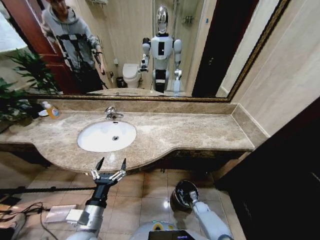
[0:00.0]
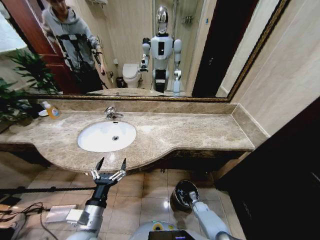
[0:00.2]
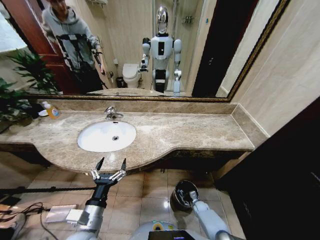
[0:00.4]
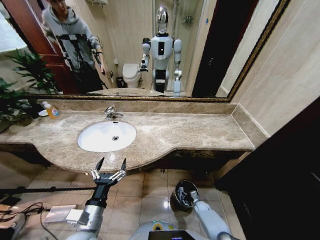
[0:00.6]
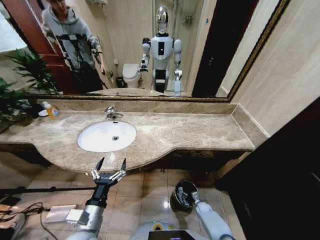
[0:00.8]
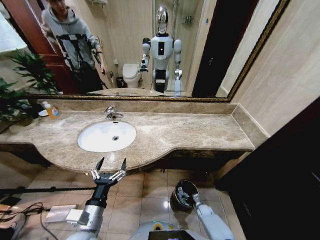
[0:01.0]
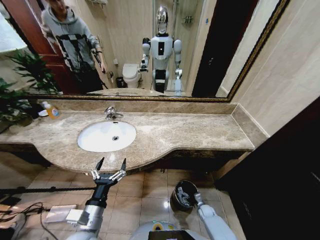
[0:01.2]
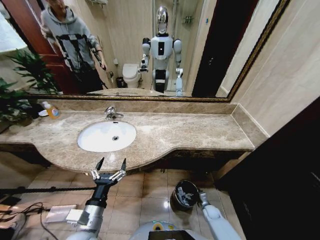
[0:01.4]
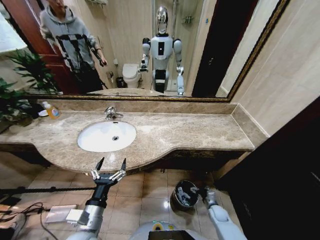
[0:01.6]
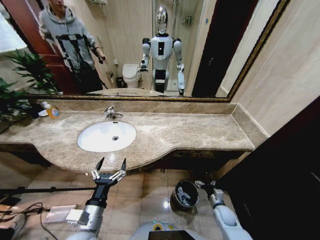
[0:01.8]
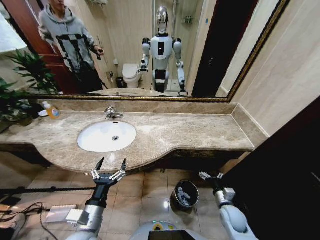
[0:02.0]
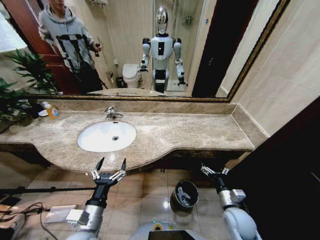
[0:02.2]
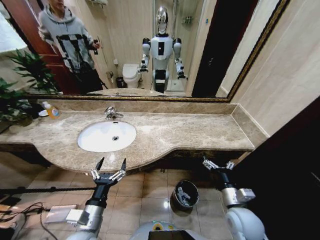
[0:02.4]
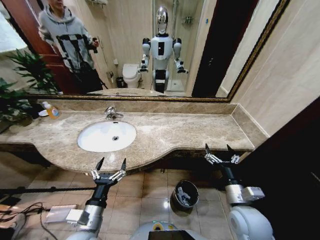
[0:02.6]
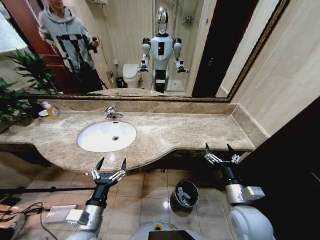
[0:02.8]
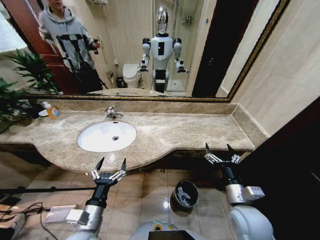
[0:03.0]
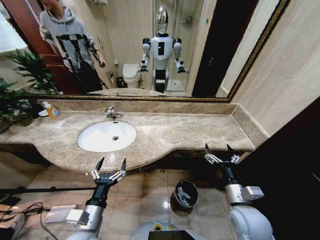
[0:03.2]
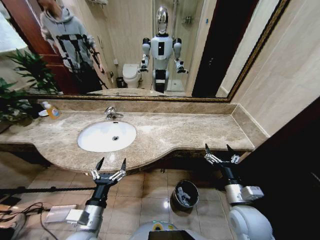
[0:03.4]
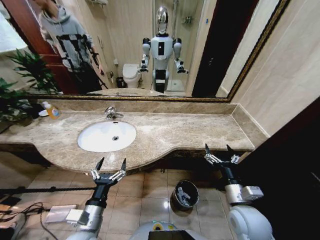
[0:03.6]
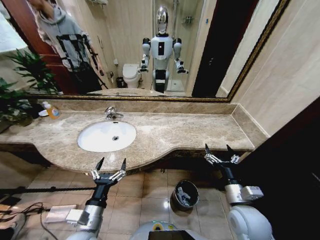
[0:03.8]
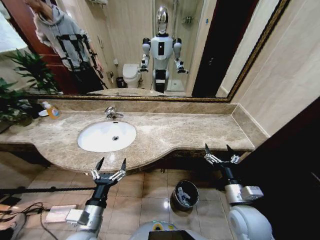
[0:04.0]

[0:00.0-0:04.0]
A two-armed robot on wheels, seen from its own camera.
Task of the whole recording: Pick up the trash from the sink and place it in the trash bin.
0:00.0 to 0:01.4: The right gripper moves about 5 cm, and opens its fingers.
0:01.4 to 0:02.6: The right gripper travels upward by approximately 35 cm.
0:02.6 to 0:04.0: Both grippers stay about where they are.
